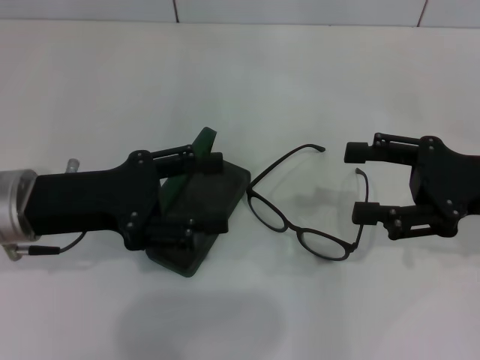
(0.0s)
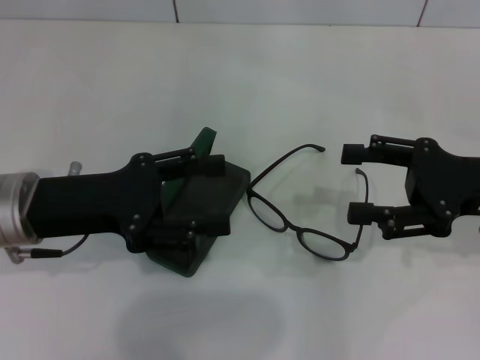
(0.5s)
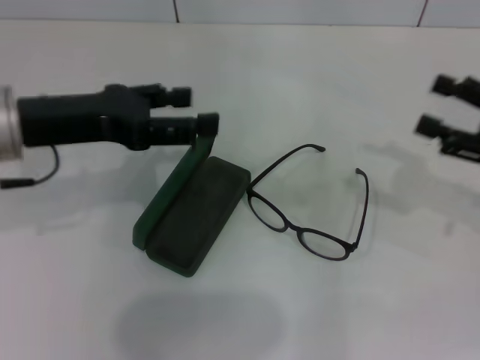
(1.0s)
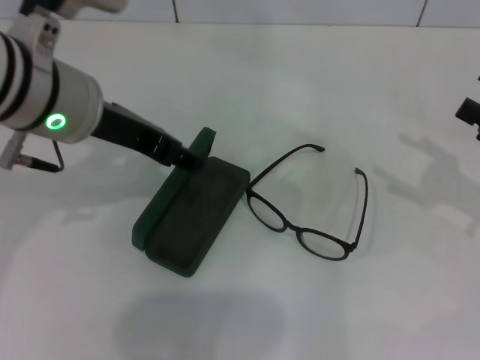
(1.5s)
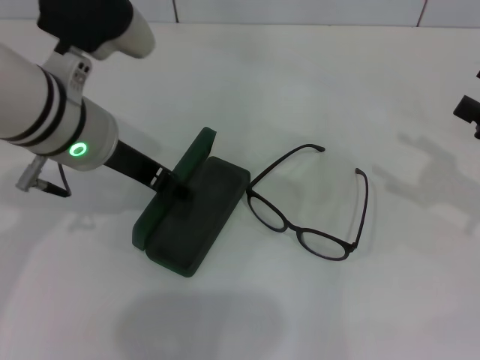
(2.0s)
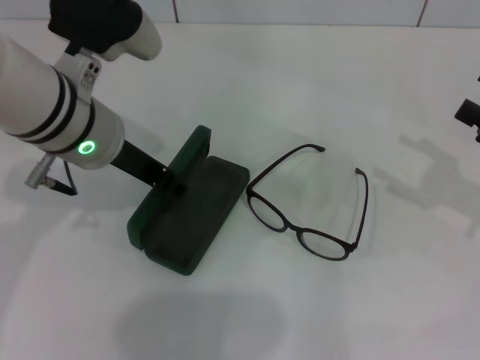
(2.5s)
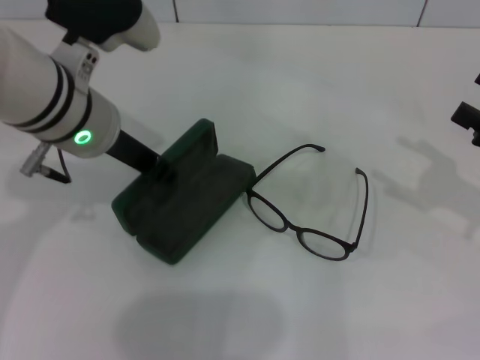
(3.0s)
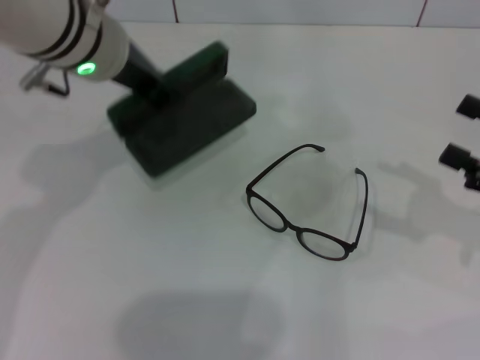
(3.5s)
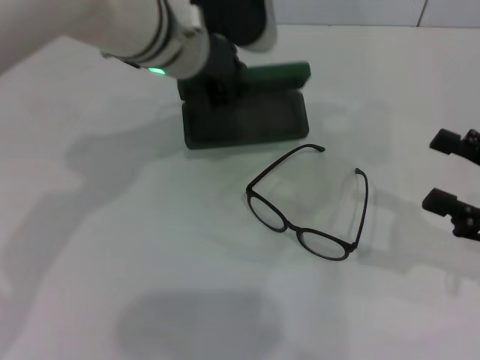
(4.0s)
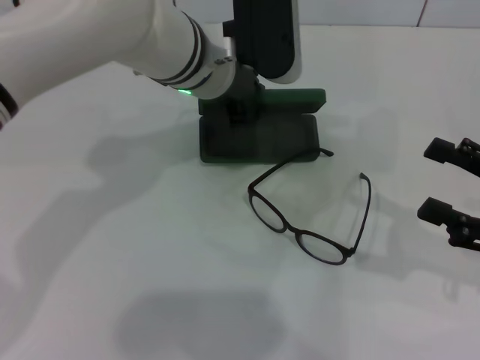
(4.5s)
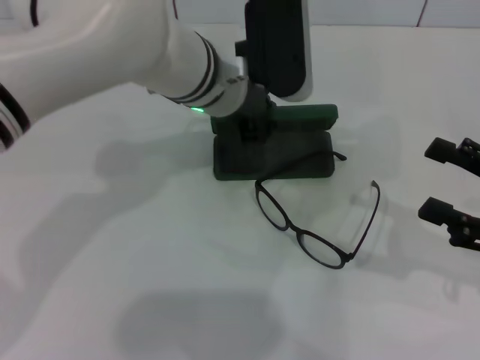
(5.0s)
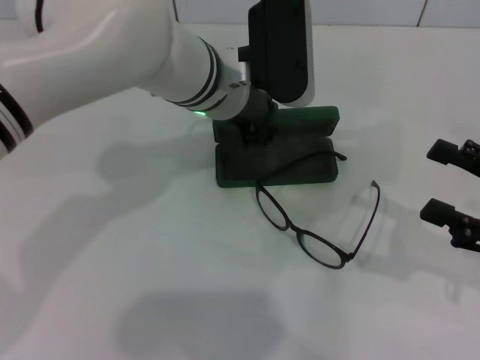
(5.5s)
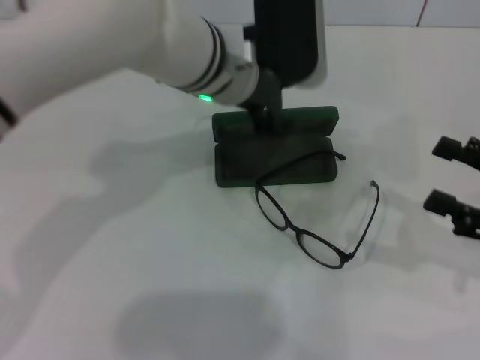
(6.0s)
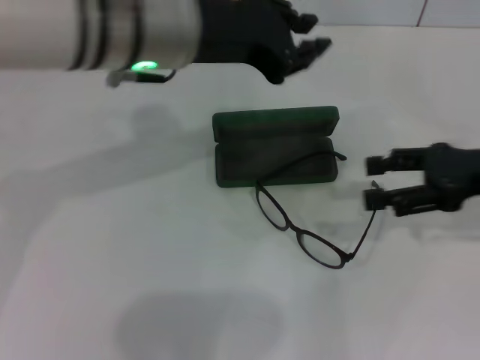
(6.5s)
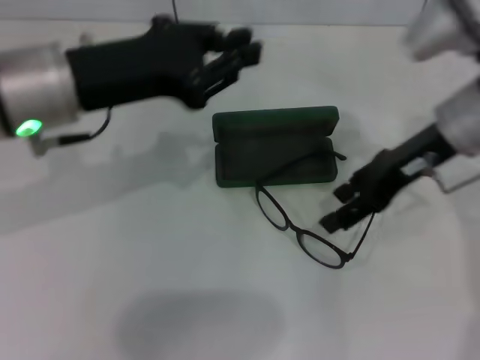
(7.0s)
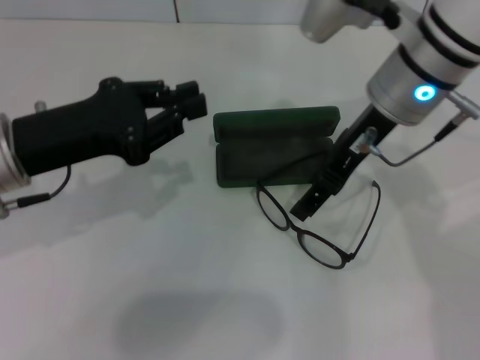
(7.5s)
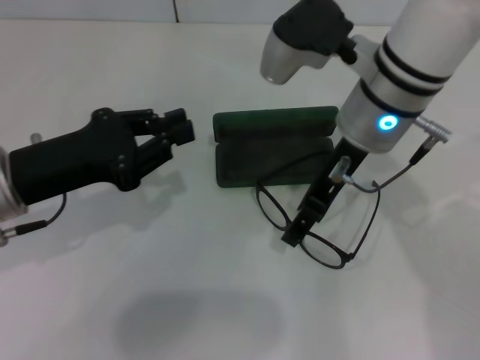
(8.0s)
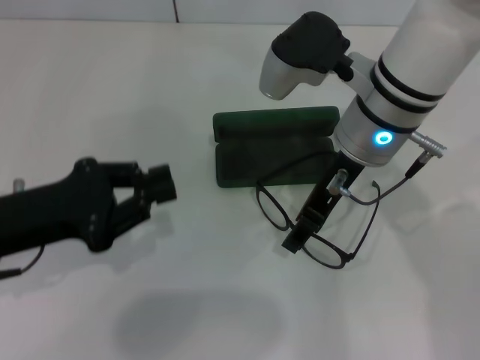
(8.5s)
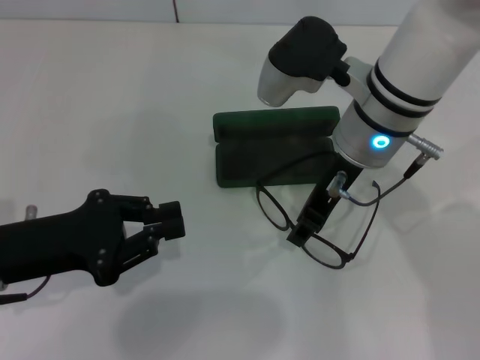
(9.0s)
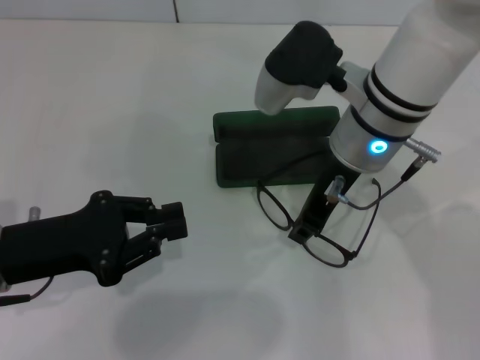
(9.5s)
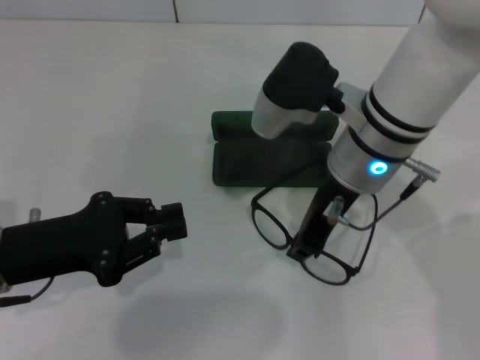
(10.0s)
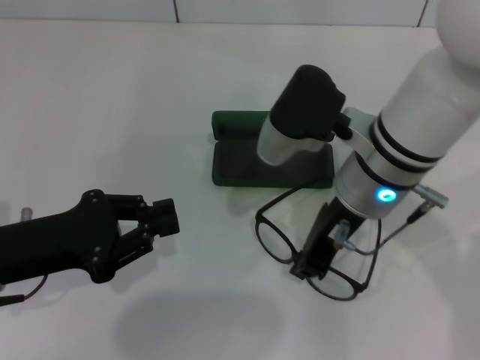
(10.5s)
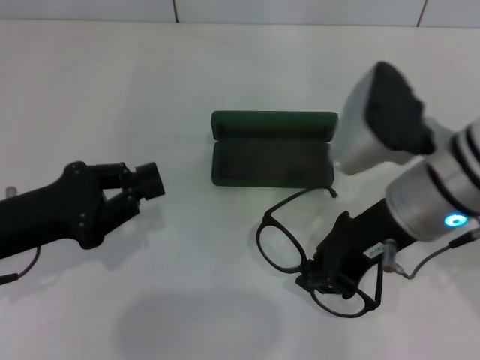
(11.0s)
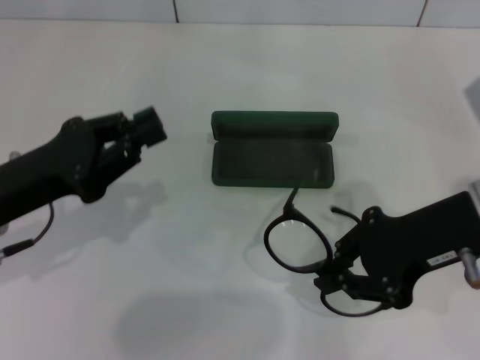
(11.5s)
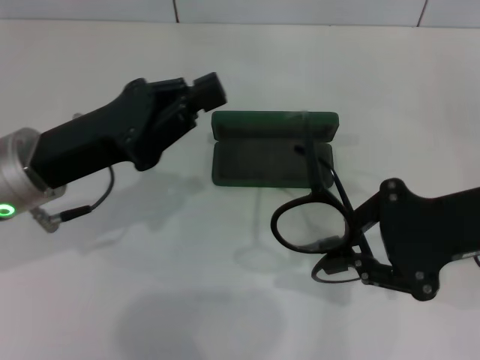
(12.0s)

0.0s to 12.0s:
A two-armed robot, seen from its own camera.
Step, 0.0s to 2.5s: Grab the glasses case with your left hand.
Step, 3.0s to 5.0s: Place the glasses case in the center of the table with your left hand.
Step, 5.5s to 9.0s: Grab the eyeglass frame with your right hand.
0.0s to 2.0s: The right gripper shifts approximately 10 cm to the right, while the left gripper heads to the right, upward and forward, covering some 10 cm.
2.0s to 4.0s: The left gripper heads to the right and forward, covering some 10 cm, and closes up. Meanwhile the right gripper changes place by about 5 cm.
4.0s to 6.0s: The left gripper opens.
6.0s to 8.0s: The right gripper is displaced to the left and forward by some 25 cm. Meanwhile the left gripper moves to the left and backward, roughly 25 cm, and closes up.
8.0s to 10.0s: The right gripper closes. Meanwhile the left gripper ends up some 5 cm from where it was.
10.0s to 12.0s: The left gripper travels forward by roughly 5 cm; the right gripper travels to the right and backward by some 15 cm.

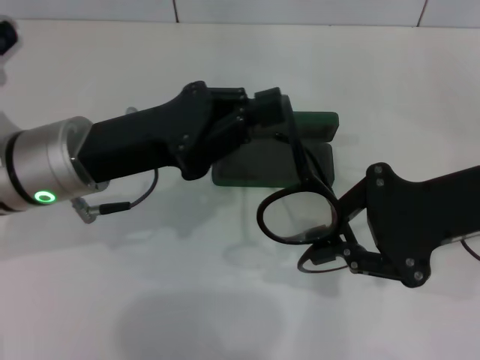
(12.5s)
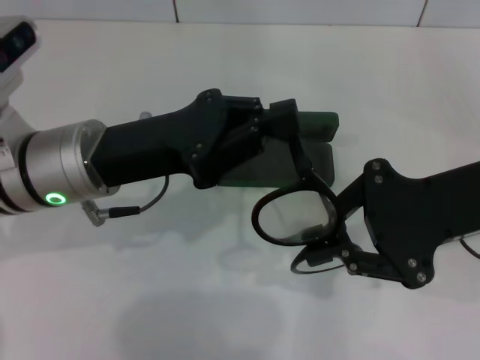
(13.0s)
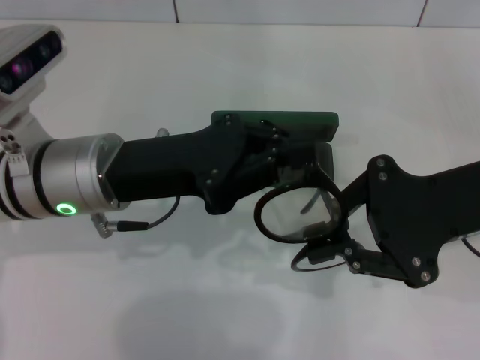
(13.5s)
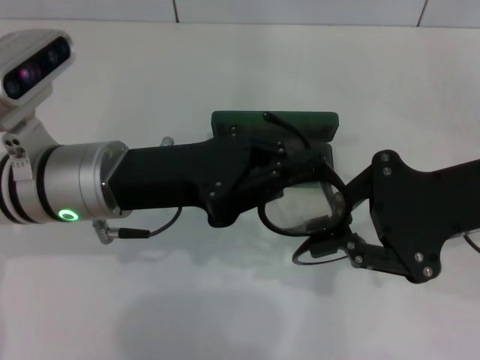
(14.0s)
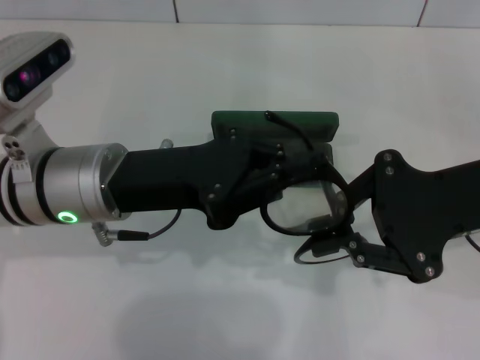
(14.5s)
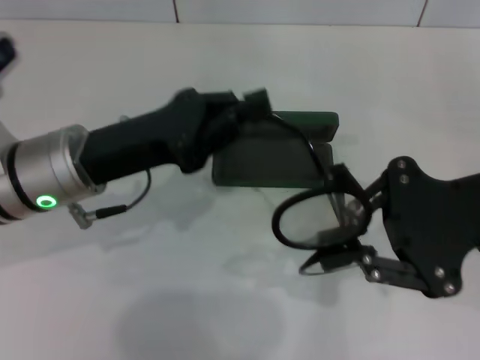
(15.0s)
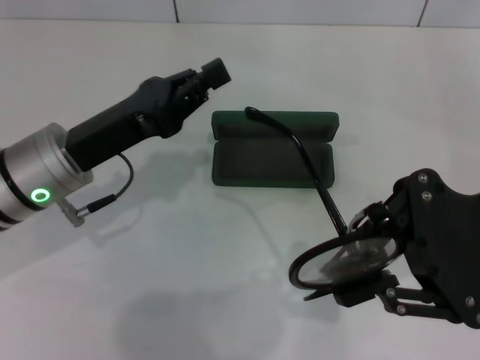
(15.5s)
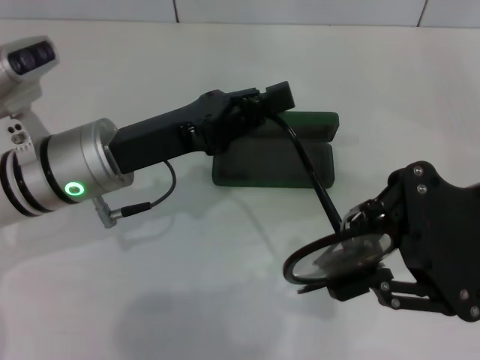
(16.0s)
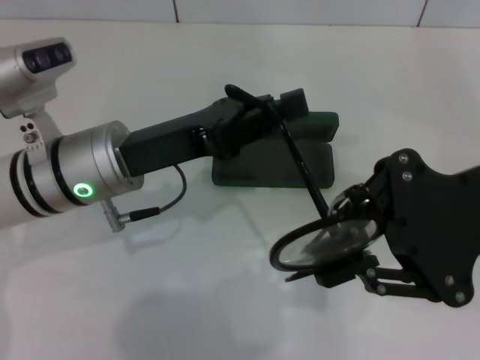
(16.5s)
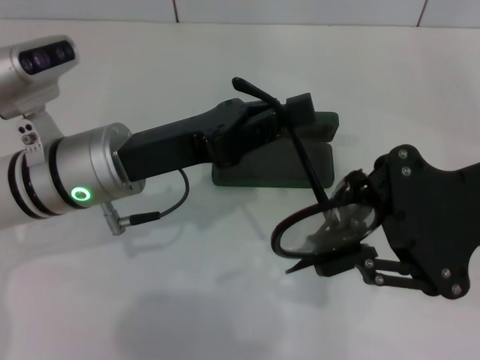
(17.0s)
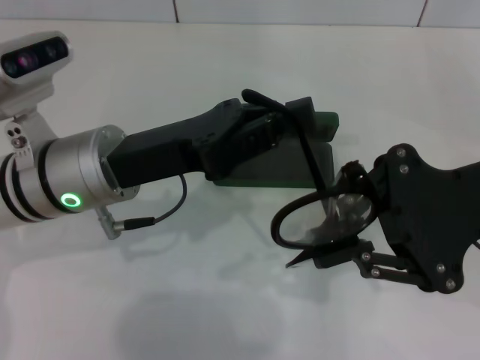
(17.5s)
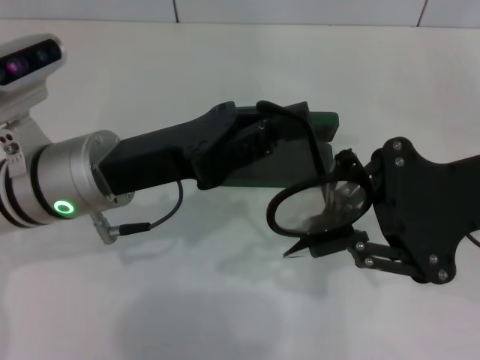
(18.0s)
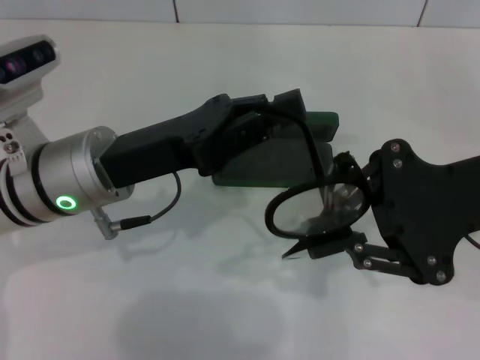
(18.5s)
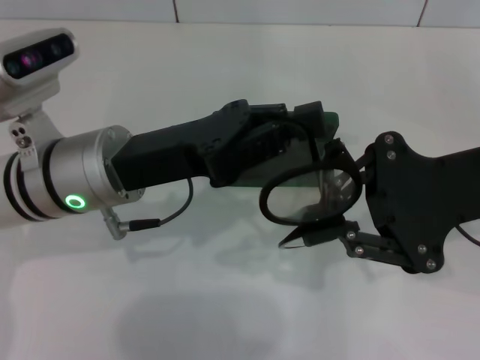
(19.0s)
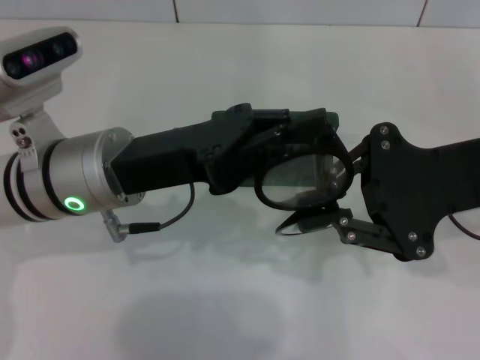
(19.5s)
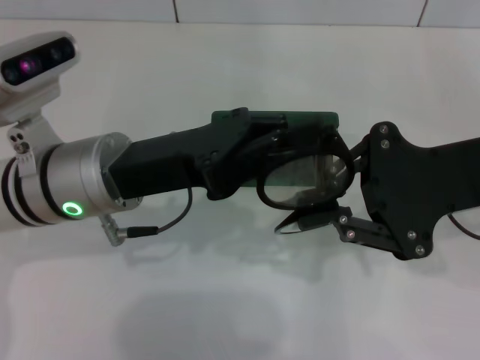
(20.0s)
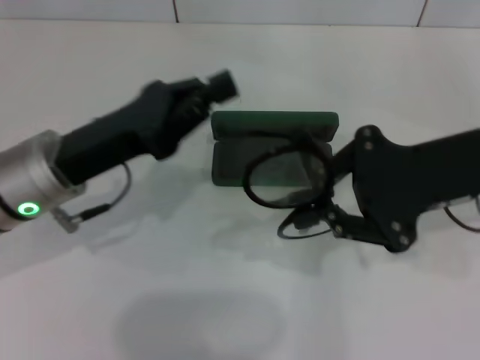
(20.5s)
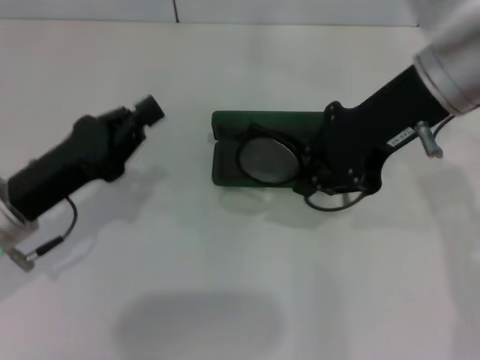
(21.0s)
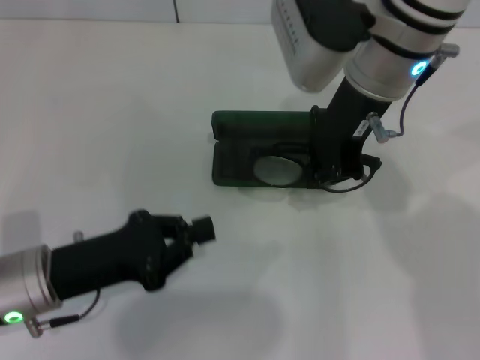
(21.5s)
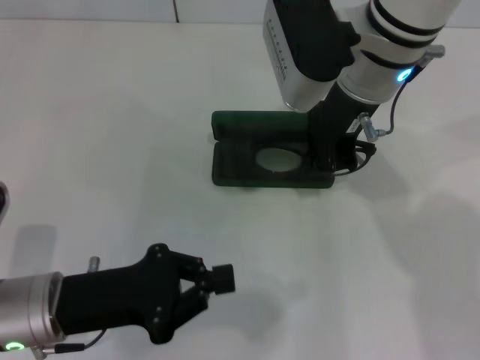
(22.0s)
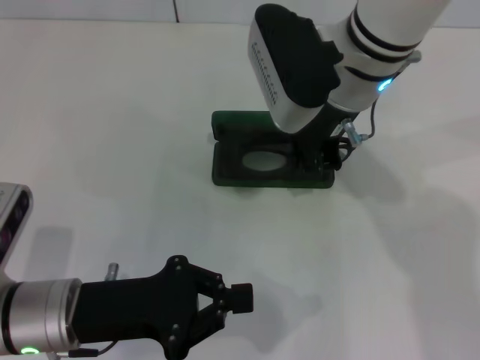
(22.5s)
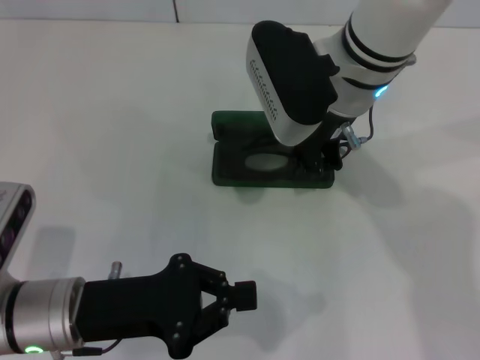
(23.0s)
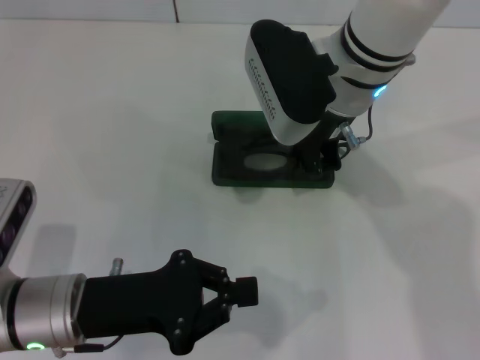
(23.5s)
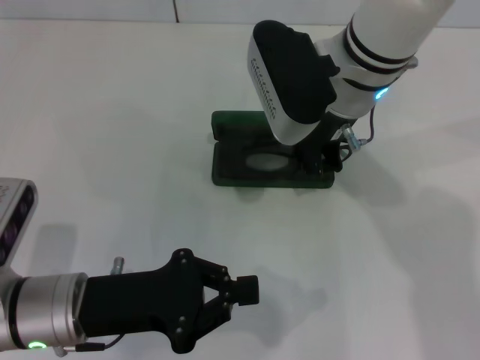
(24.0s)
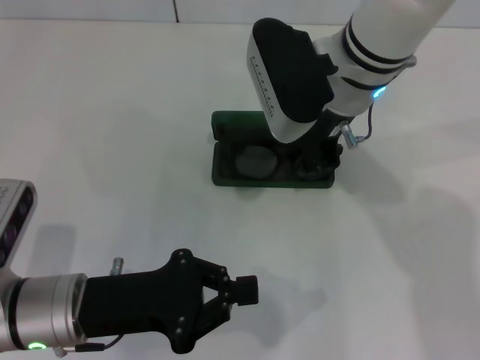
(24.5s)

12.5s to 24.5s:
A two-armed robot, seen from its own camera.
Step, 12.5s to 19.5s: Fold the frame with your left hand.
16.5s to 18.5s: The grippers move only a little.
20.5s to 22.5s: The left gripper moves backward and downward, some 10 cm. The right gripper travels to the left and forward by roughly 15 cm.
22.5s to 24.5s: Both grippers stay about where they are.

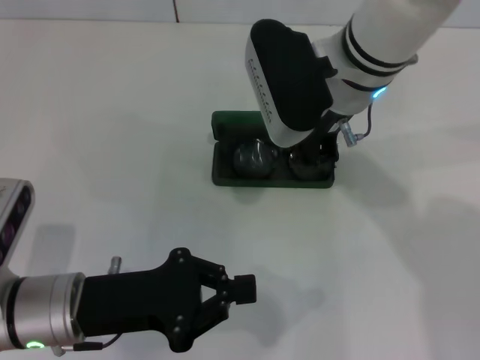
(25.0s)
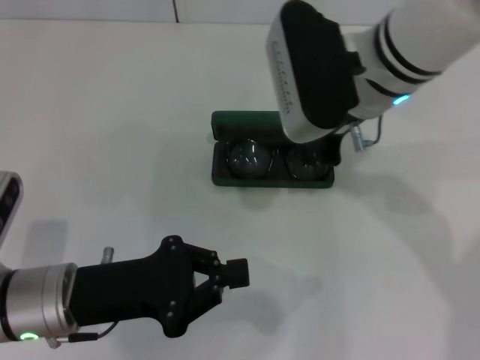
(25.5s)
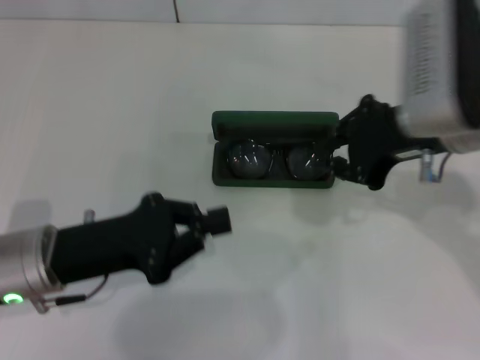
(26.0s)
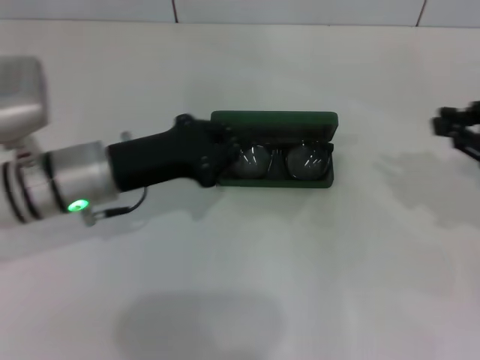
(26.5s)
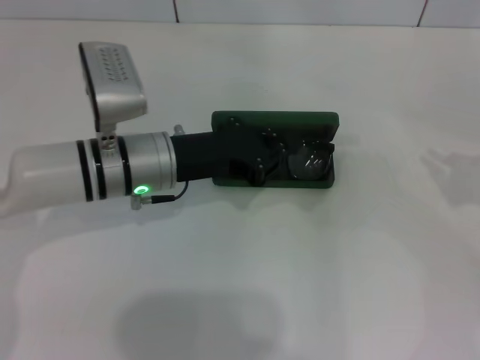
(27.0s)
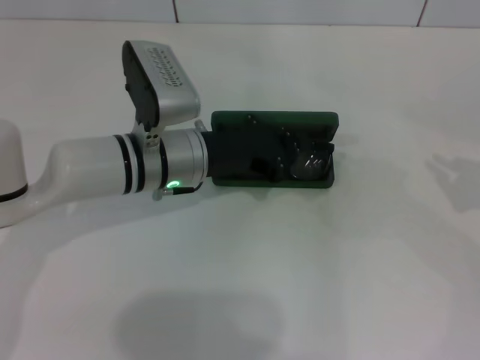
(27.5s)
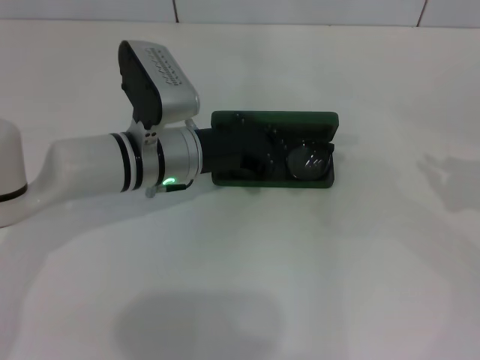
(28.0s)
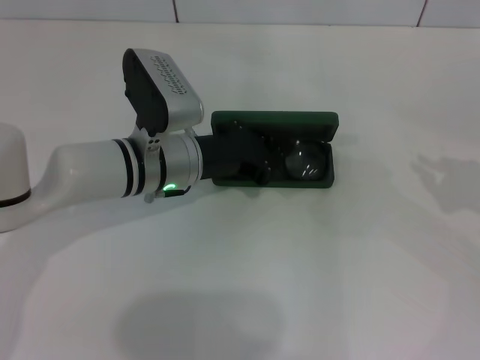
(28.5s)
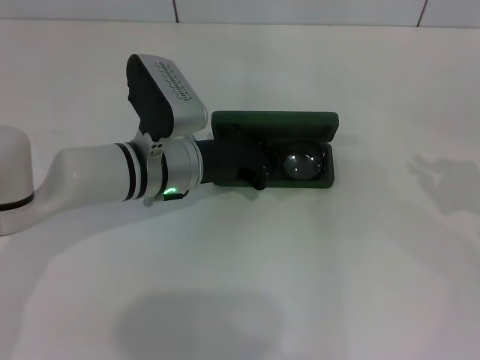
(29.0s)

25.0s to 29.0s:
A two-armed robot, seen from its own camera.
25.0s to 27.0s: The right gripper shifts some 30 cm to the right; the left gripper heads forward and to the right, covering some 15 cm.
27.0s to 29.0s: The grippers make only small movements.
